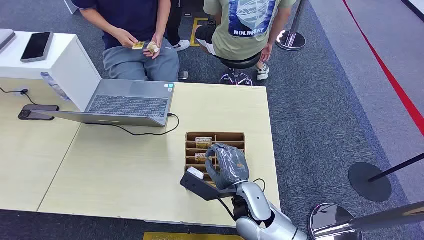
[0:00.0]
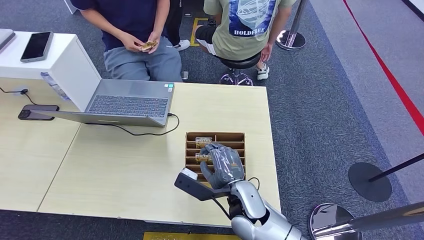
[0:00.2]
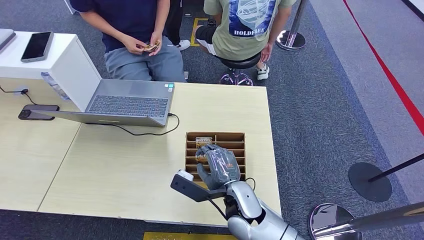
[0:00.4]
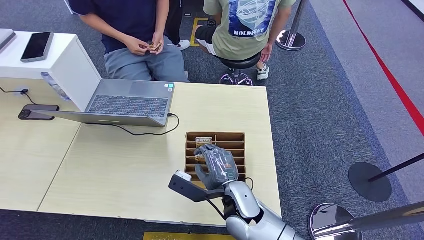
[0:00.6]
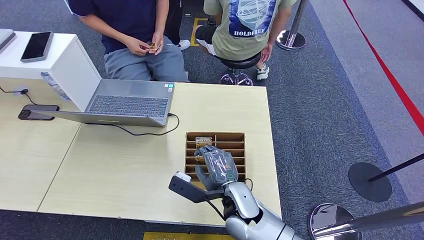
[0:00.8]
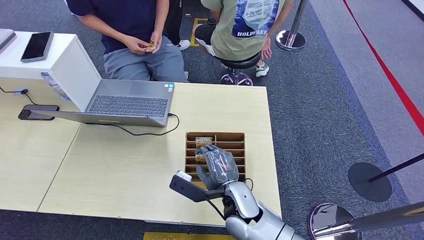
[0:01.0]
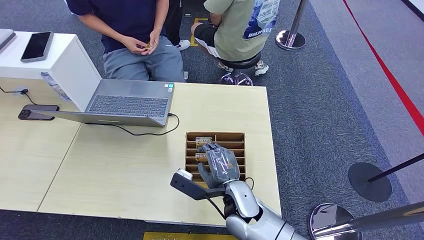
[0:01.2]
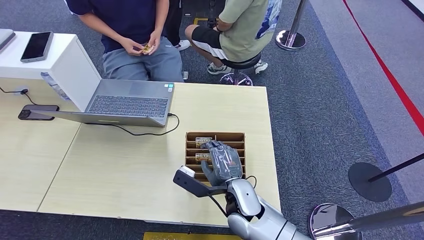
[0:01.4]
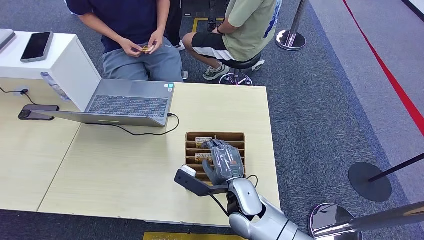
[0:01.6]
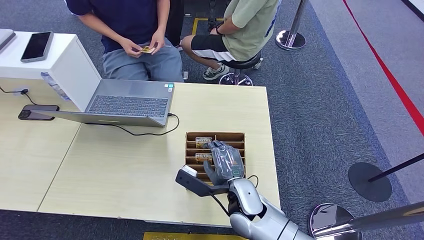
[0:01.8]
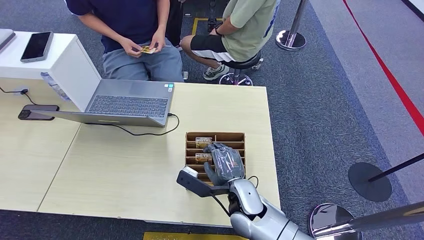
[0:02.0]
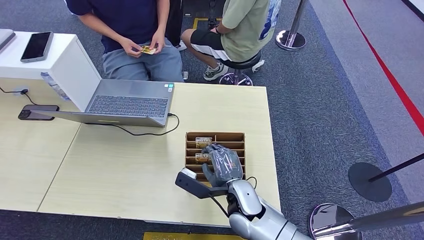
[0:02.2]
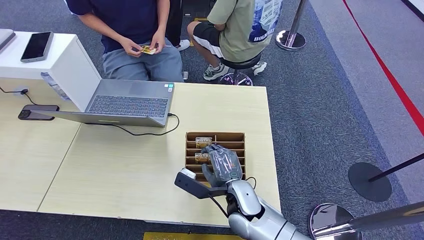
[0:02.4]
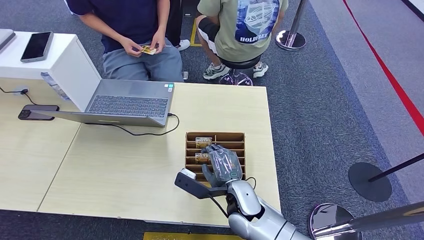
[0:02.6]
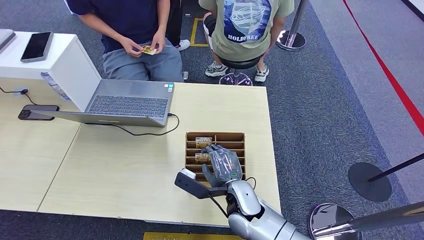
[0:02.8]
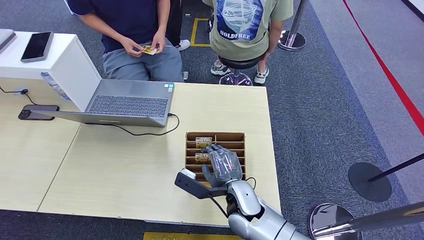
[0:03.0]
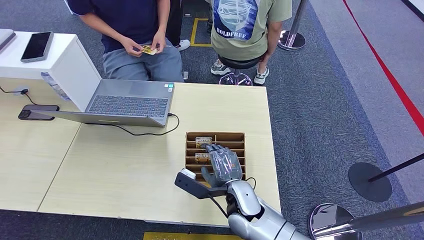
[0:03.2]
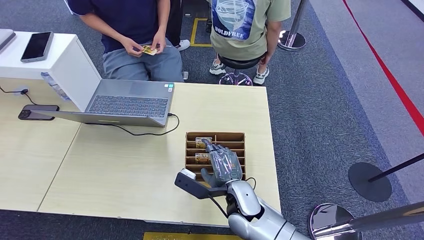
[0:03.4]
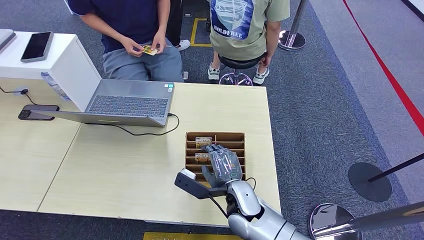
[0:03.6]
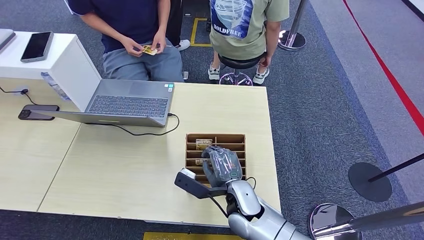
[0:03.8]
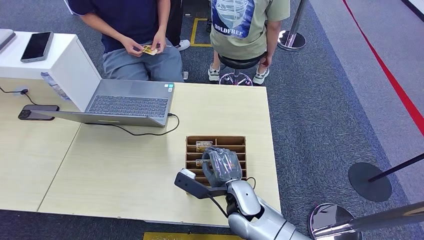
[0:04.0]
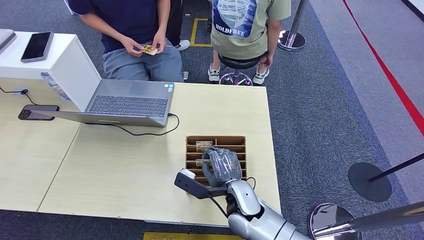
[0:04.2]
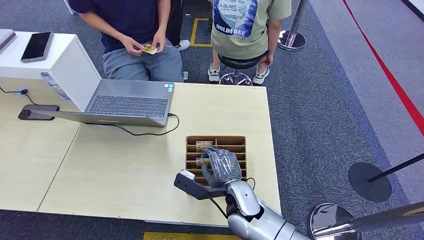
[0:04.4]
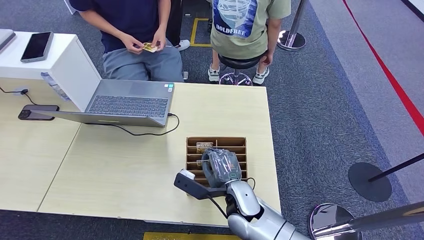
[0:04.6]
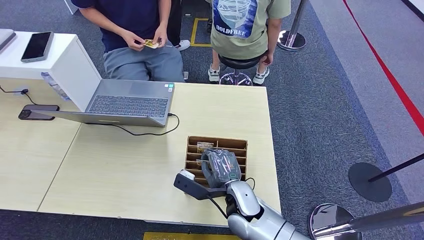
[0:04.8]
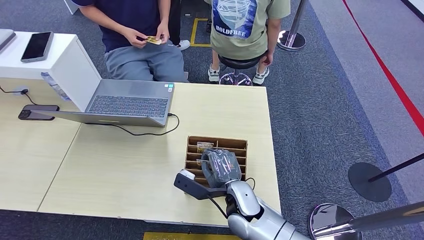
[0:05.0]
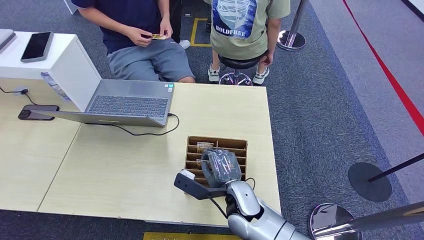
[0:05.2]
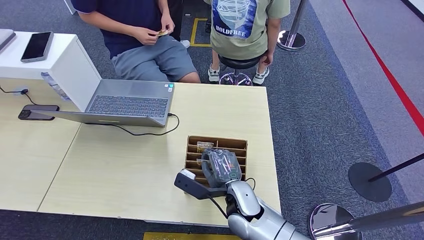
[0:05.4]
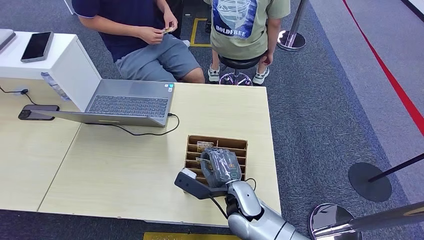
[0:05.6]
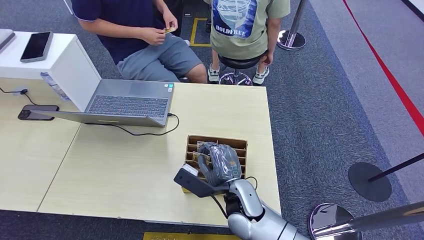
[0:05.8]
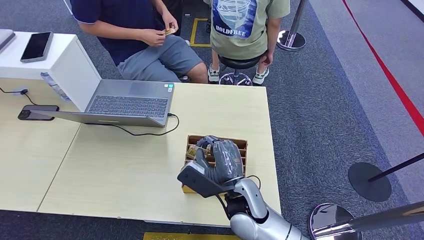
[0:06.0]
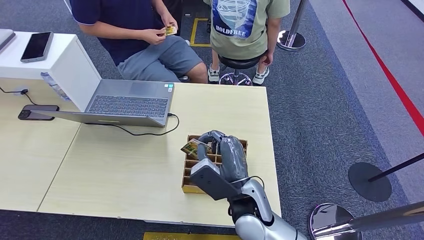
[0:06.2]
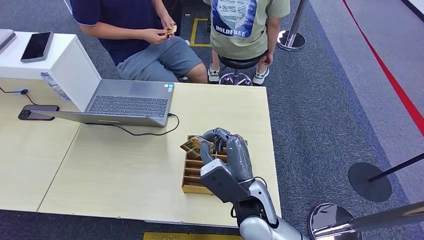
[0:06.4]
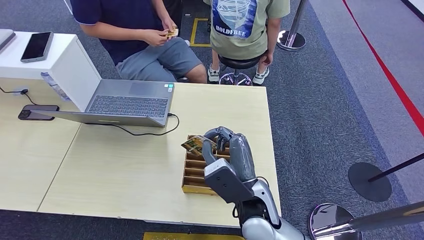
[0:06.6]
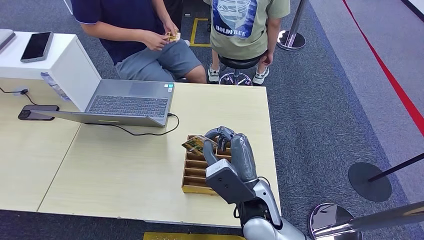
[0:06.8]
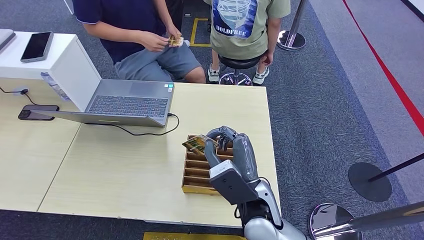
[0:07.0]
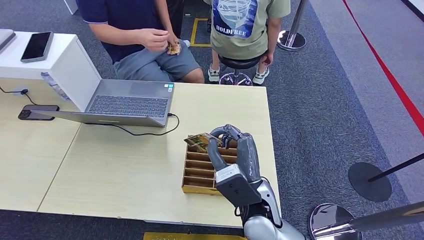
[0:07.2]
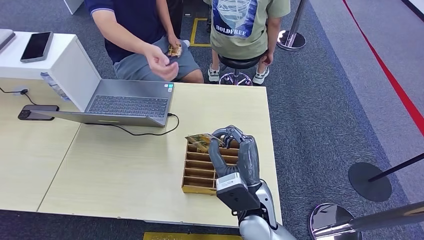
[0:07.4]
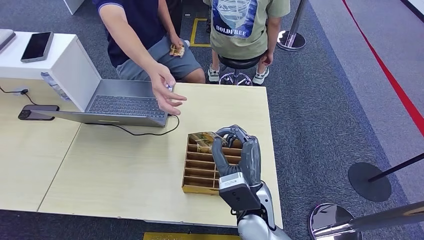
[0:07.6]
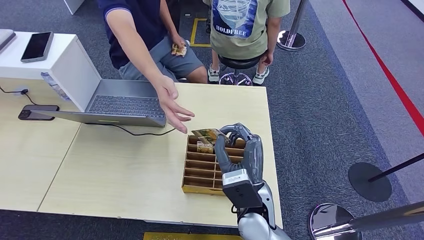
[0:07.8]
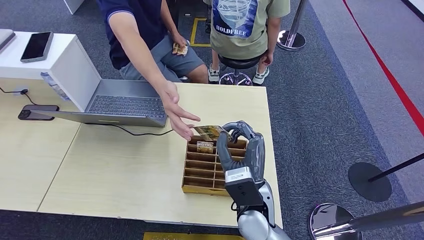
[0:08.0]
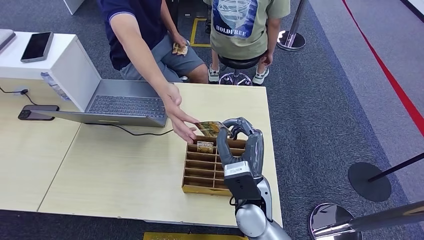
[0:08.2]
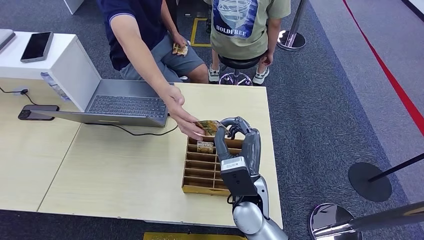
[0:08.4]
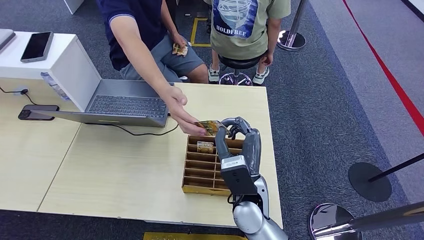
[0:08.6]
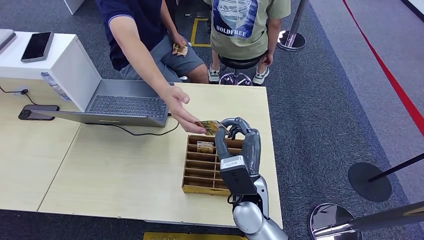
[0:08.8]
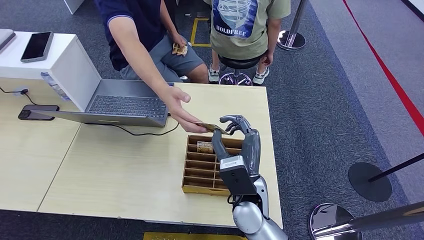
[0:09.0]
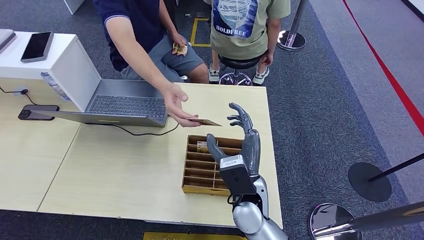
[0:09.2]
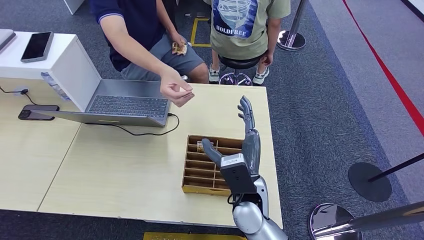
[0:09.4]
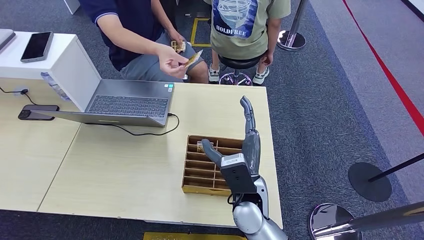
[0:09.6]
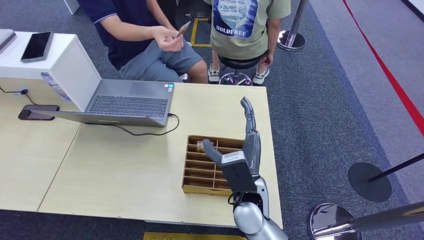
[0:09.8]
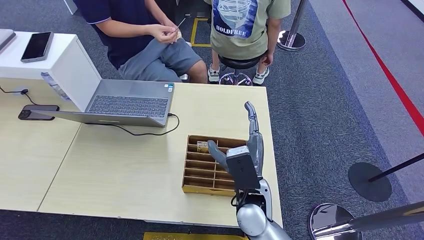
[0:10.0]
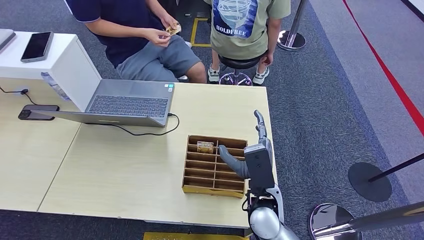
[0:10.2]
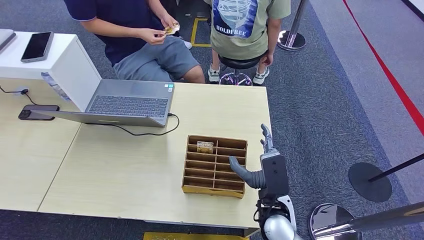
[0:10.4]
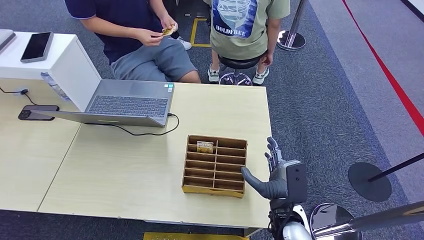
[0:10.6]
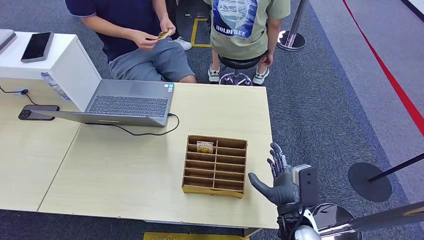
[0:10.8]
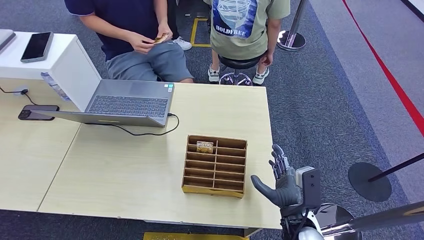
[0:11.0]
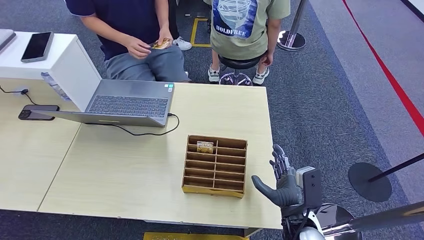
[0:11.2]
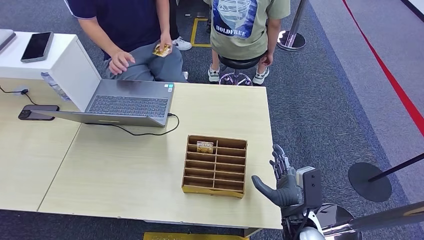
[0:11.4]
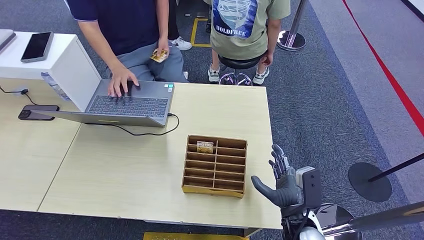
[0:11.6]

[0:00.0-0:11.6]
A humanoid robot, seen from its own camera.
Task of the whole recording: Pick up the card and hand it over to the target person.
Step, 0:00.0 to 0:07.0: Pick up the key card from the card box.
Step, 0:07.2 to 0:11.6: Hand the key card to the target.
0:01.4 to 0:02.8: There are only small adjustments of the hands.
0:02.8 to 0:04.4: Both hands stay put.
0:04.4 to 0:05.8: The right hand is displaced upward by about 10 cm.
0:07.2 to 0:08.8: The hands move only a little.
0:08.8 to 0:10.2: The right hand moves to the right, some 10 cm.
0:10.2 to 0:11.6: The right hand moves some 5 cm.

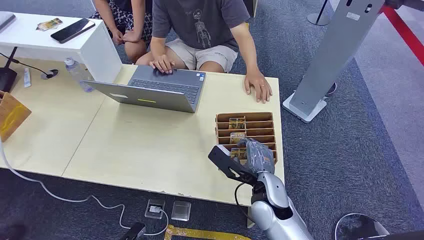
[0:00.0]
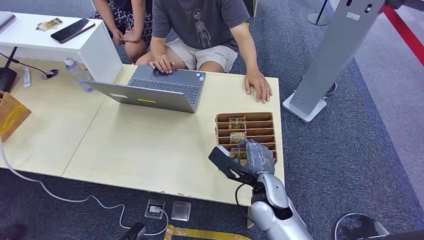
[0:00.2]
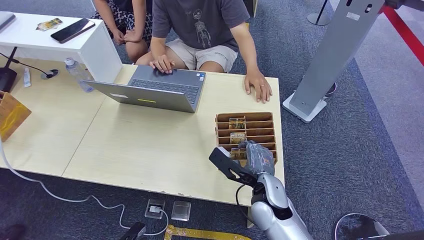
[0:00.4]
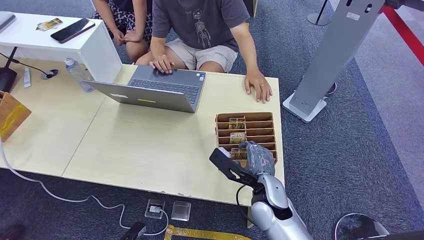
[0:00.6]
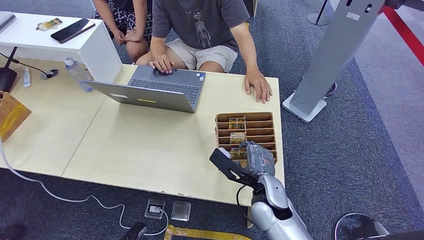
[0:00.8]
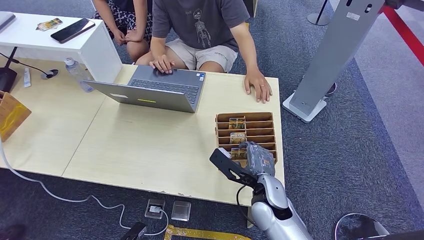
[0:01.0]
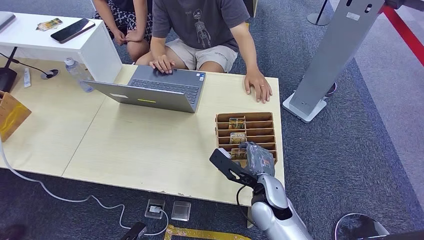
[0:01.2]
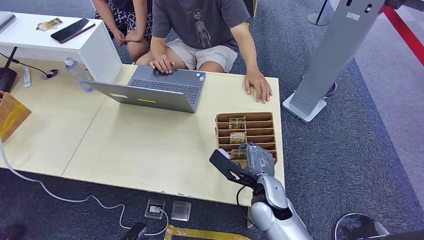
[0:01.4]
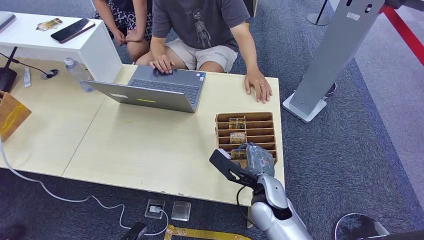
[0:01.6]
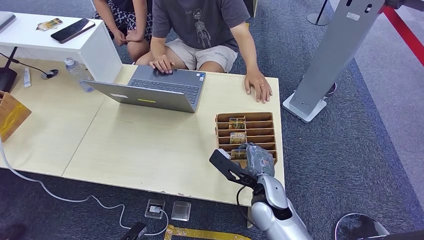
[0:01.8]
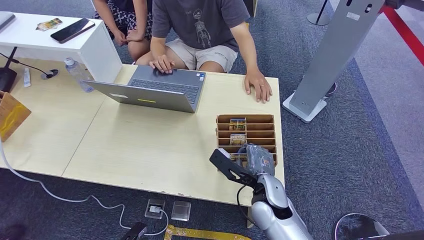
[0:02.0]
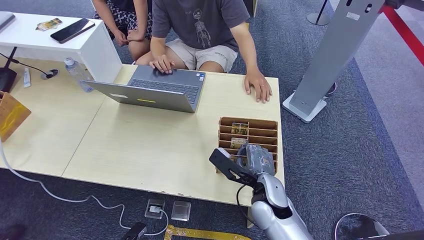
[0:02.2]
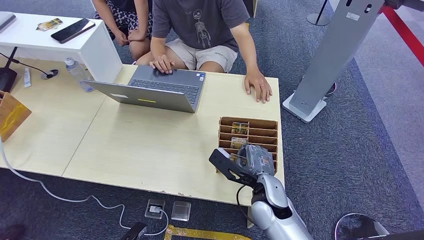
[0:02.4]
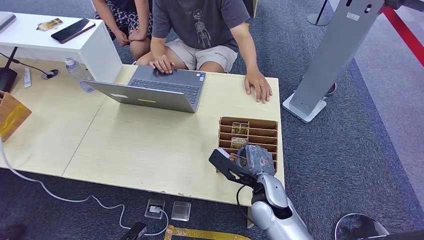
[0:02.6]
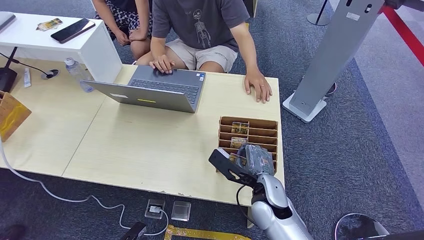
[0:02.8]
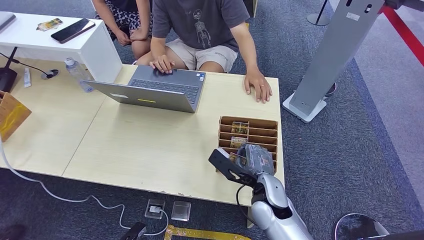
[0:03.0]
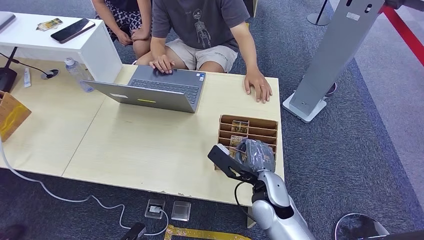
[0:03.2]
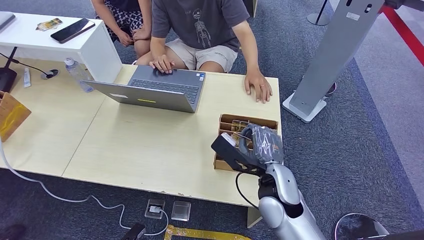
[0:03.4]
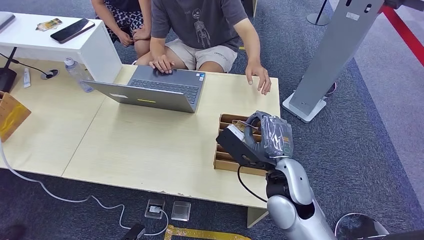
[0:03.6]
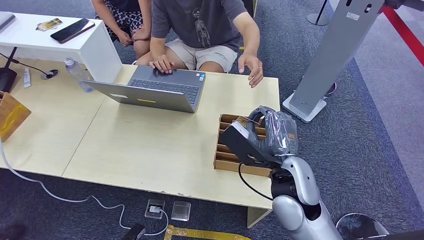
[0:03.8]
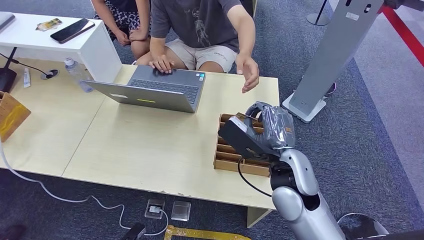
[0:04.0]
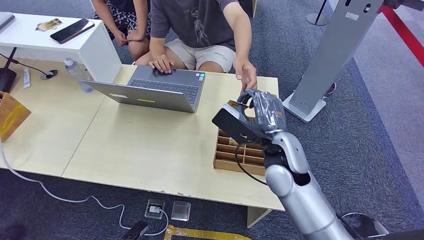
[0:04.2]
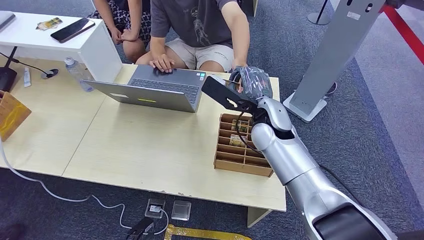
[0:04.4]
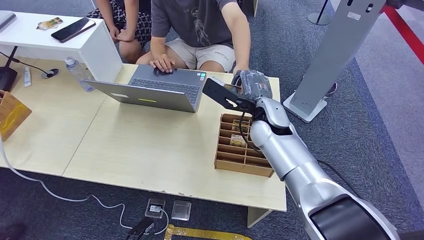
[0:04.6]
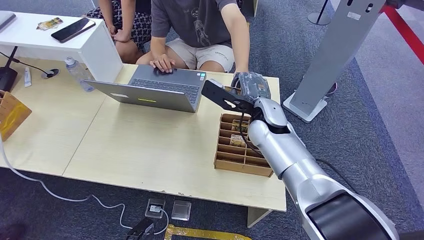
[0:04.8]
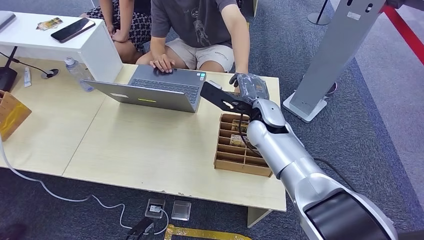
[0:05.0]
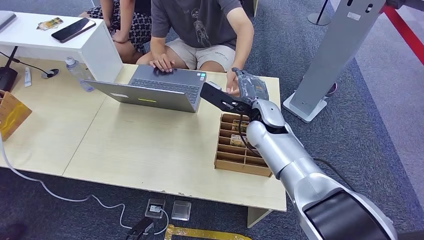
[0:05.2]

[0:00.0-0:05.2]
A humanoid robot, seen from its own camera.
Task of the whole recording: Pick up the card and hand it over to the target person.
Step, 0:00.0 to 0:03.4: Pick up the key card from the card box.
Step, 0:04.0 to 0:05.2: Hand the key card to the target.
0:01.8 to 0:03.4: The right hand travels upward by about 15 cm.
0:03.4 to 0:05.2: The right hand moves forward, roughly 20 cm.
